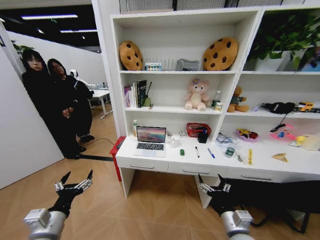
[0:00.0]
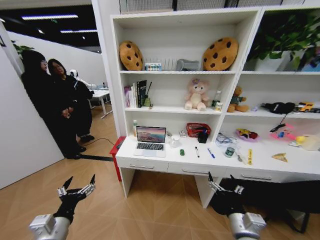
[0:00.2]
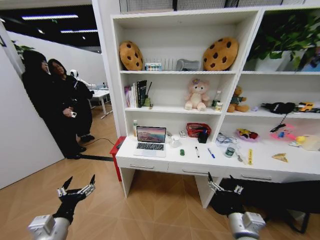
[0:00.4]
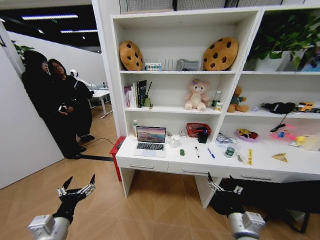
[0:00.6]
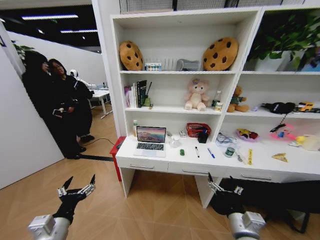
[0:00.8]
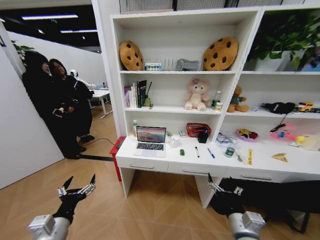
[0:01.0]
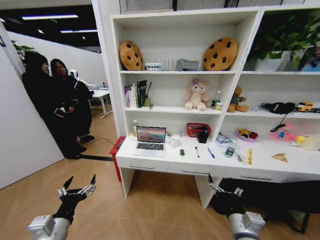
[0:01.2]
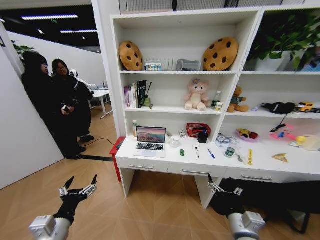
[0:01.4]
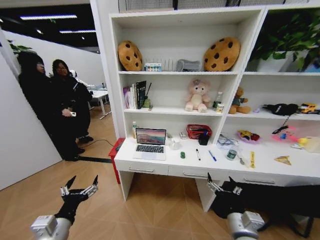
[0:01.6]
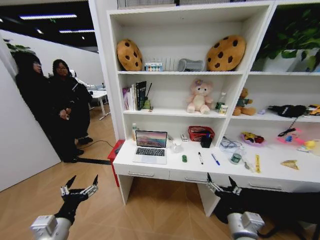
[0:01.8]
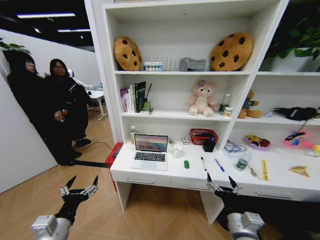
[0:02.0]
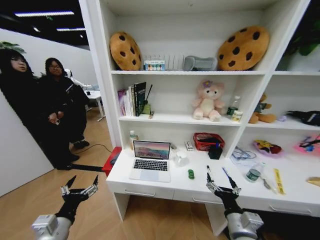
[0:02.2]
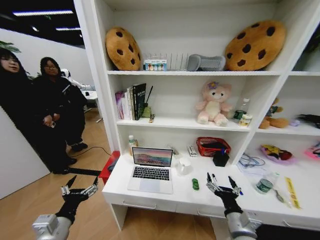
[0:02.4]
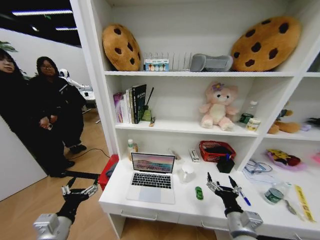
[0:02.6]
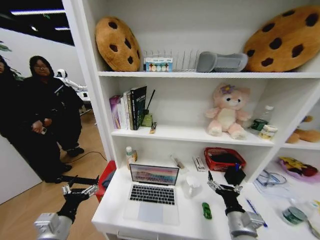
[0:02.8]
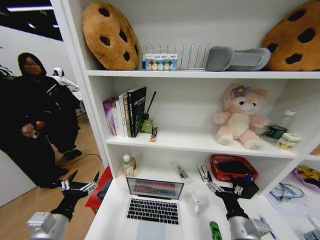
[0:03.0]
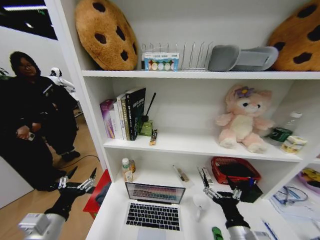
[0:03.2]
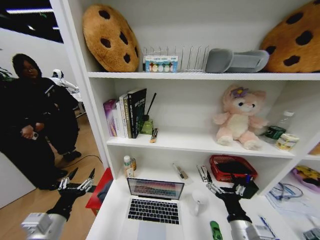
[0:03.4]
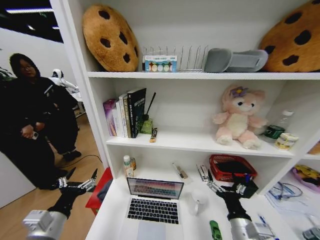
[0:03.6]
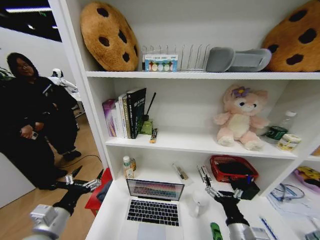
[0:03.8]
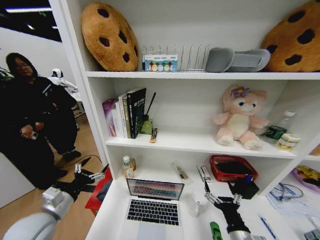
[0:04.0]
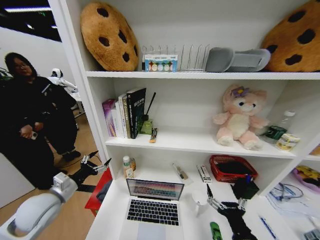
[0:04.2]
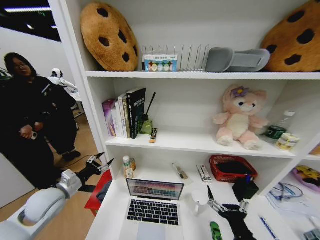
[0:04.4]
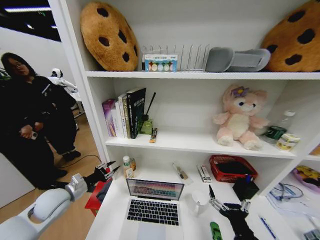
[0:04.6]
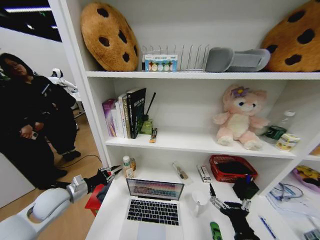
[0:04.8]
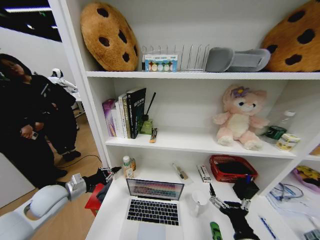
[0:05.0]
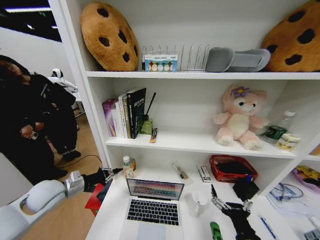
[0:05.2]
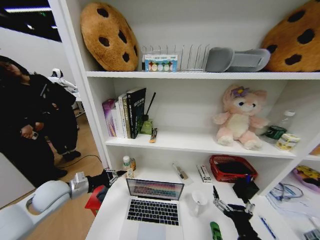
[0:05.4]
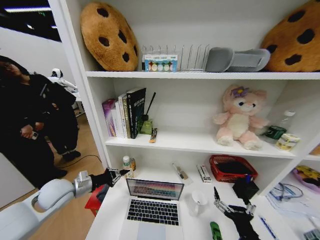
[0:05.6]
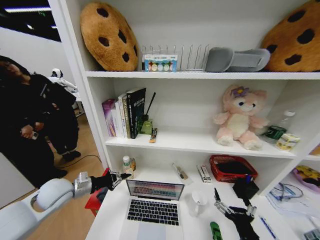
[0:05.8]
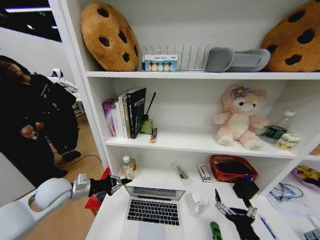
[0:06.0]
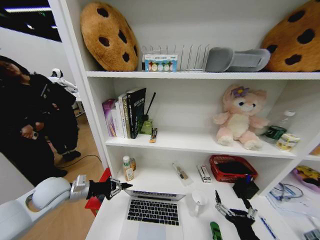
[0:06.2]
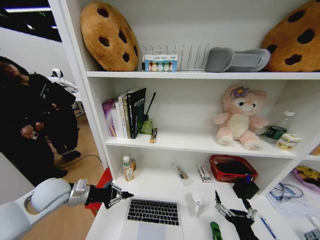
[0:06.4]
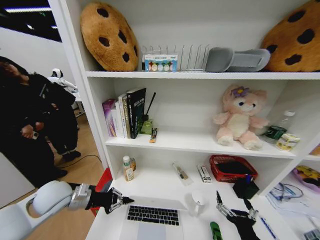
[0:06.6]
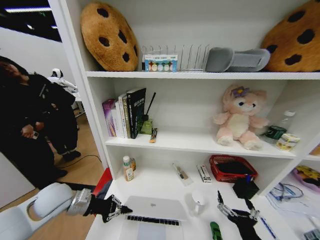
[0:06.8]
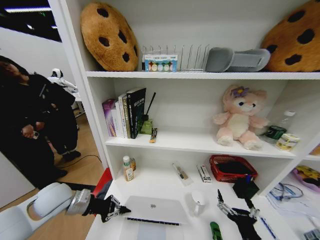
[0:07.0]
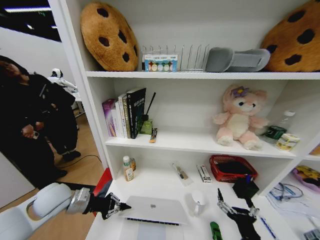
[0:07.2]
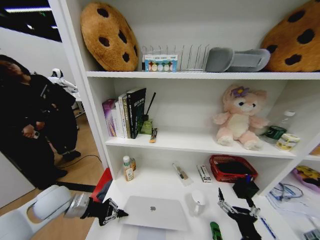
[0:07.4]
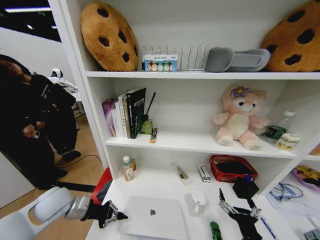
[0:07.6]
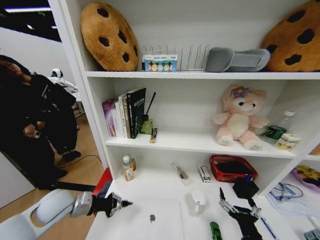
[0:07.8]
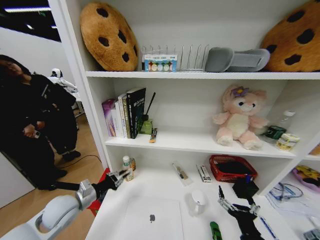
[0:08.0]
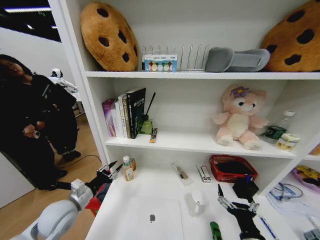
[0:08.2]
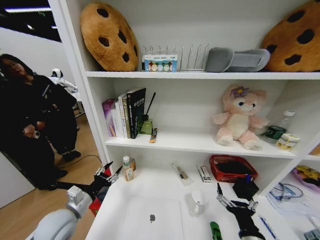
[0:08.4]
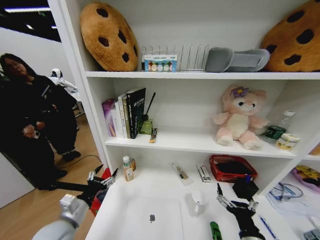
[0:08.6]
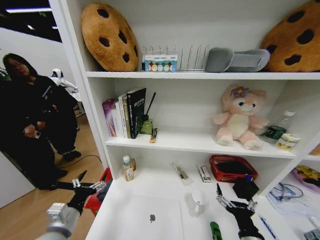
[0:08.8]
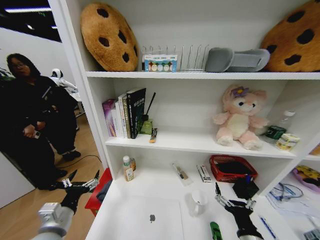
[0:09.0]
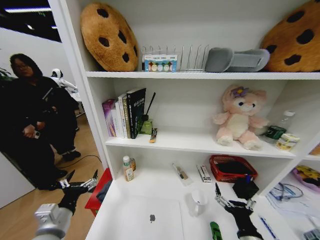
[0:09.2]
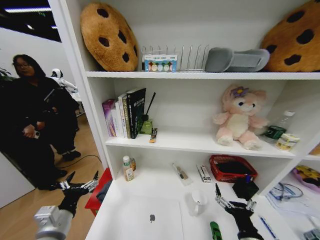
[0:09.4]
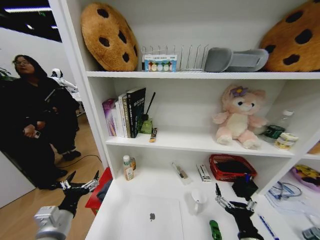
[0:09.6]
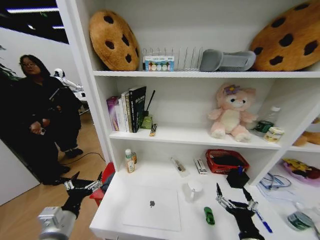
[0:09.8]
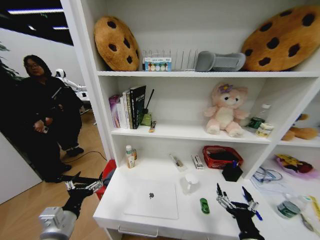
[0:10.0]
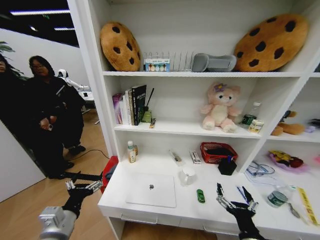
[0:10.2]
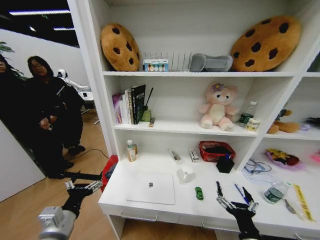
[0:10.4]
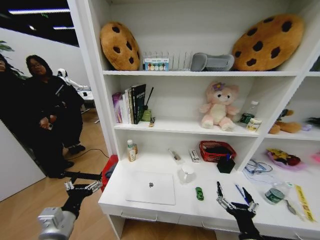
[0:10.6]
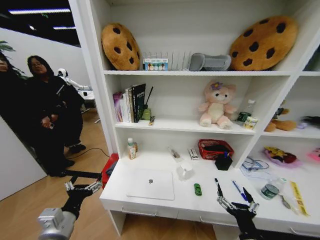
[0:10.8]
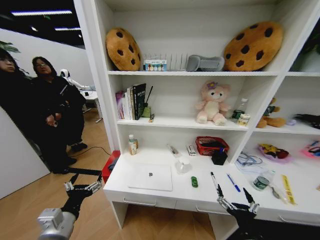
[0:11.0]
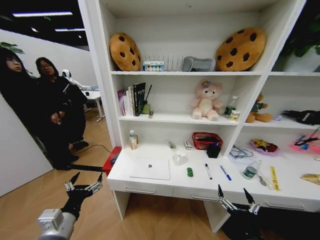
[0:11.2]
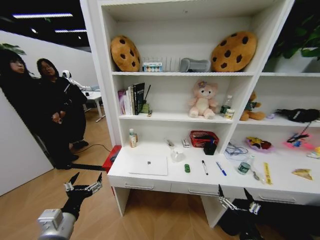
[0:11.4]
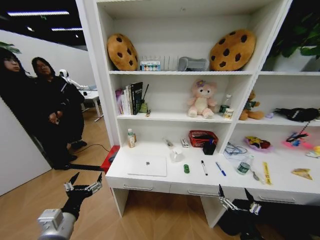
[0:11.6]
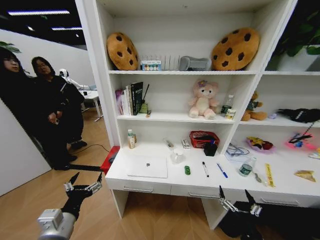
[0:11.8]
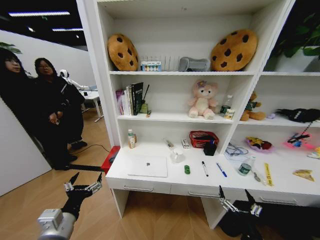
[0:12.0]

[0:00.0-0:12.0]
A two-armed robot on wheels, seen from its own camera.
Task of the whole recording: Organize the objects on the table.
0:03.0 to 0:04.4: The right gripper travels backward by roughly 5 cm; the left gripper shifts about 15 cm forward and to the left.
0:04.4 to 0:06.0: The left gripper closes.
0:07.6 to 0:09.0: The left gripper is displaced backward by about 10 cm, and opens up.

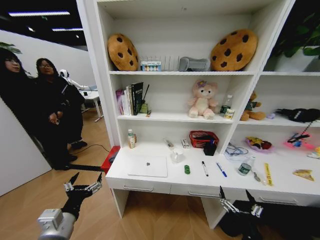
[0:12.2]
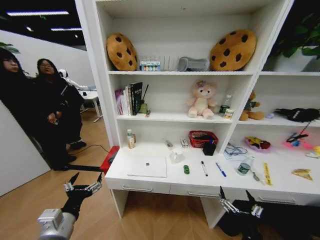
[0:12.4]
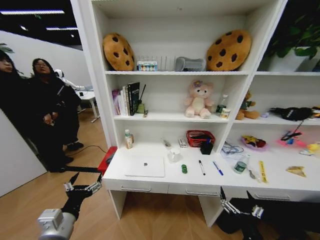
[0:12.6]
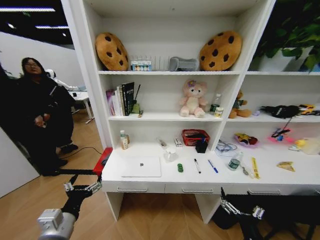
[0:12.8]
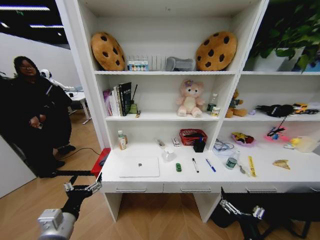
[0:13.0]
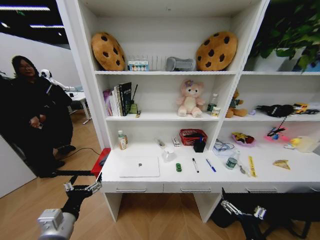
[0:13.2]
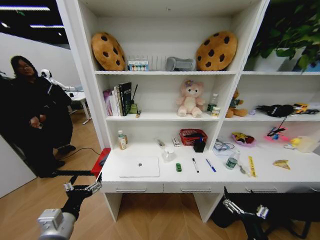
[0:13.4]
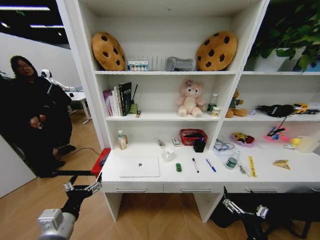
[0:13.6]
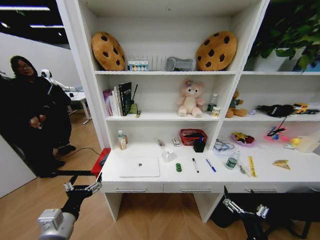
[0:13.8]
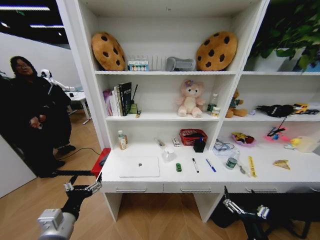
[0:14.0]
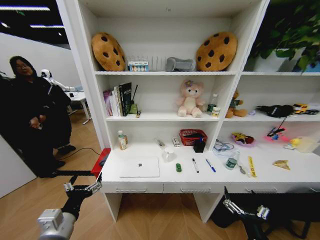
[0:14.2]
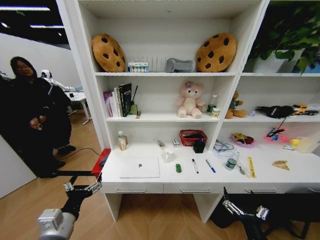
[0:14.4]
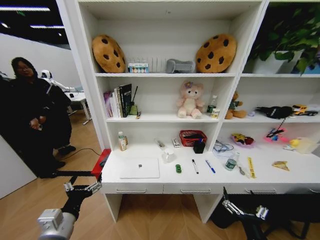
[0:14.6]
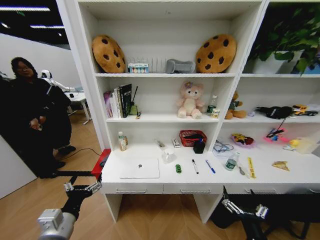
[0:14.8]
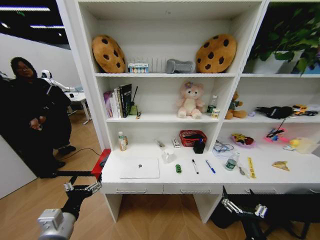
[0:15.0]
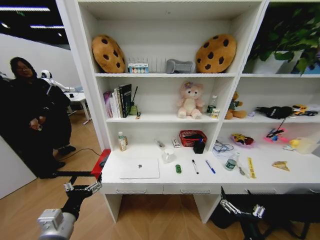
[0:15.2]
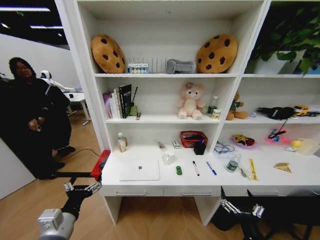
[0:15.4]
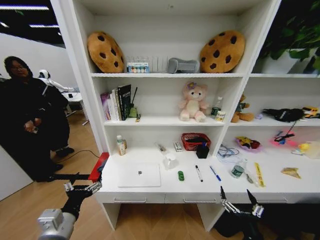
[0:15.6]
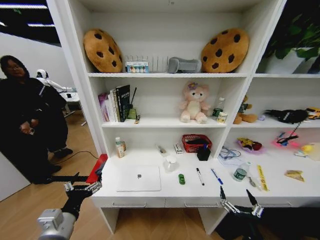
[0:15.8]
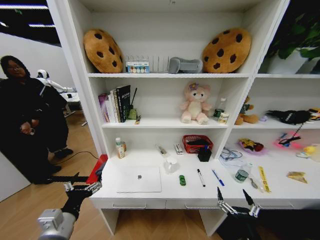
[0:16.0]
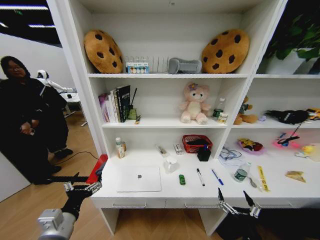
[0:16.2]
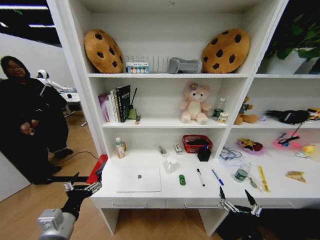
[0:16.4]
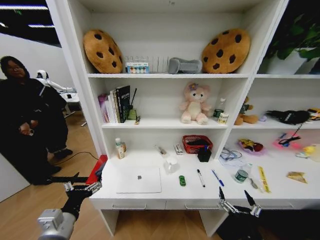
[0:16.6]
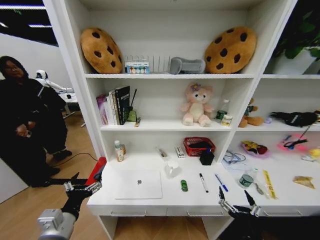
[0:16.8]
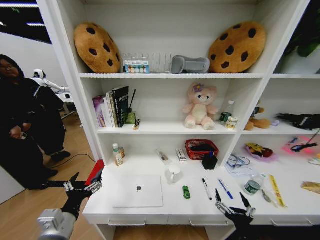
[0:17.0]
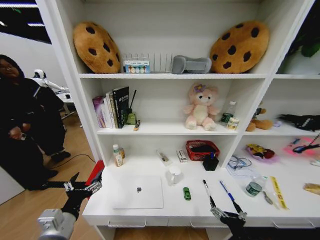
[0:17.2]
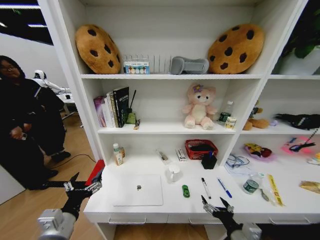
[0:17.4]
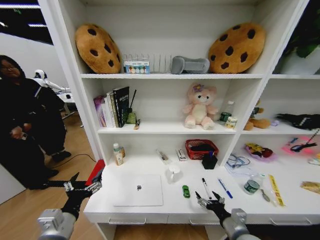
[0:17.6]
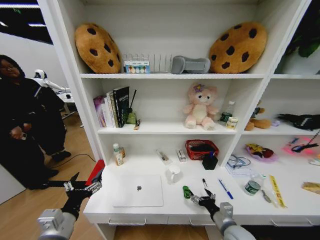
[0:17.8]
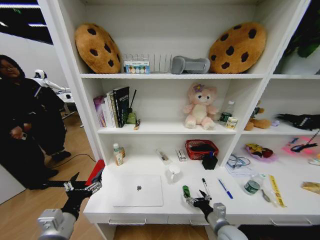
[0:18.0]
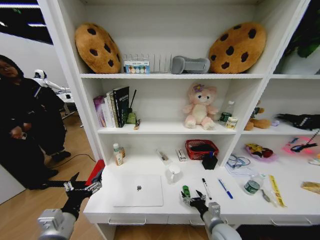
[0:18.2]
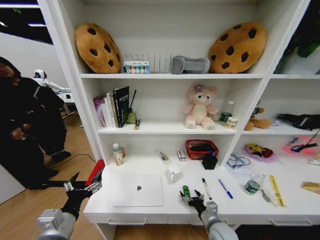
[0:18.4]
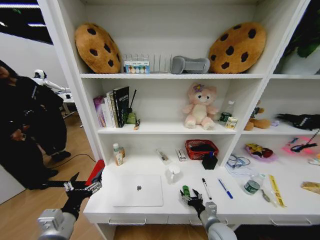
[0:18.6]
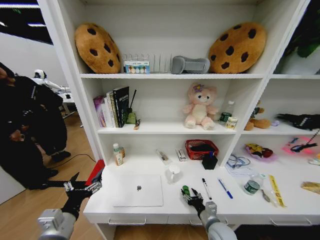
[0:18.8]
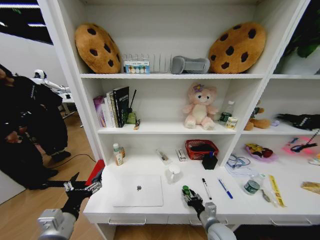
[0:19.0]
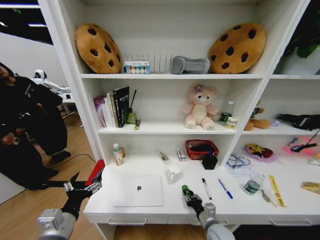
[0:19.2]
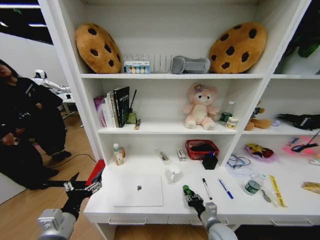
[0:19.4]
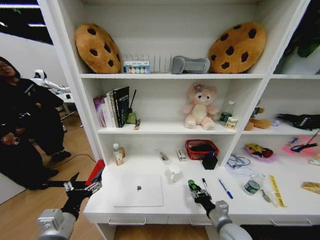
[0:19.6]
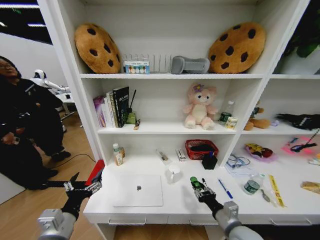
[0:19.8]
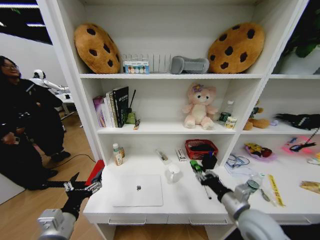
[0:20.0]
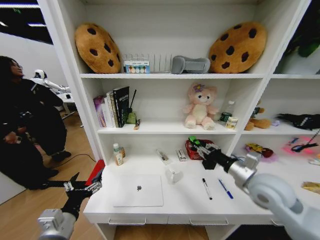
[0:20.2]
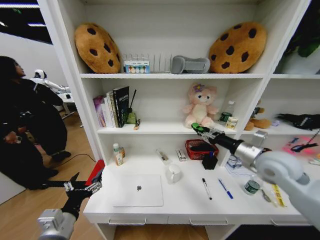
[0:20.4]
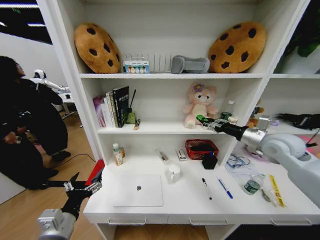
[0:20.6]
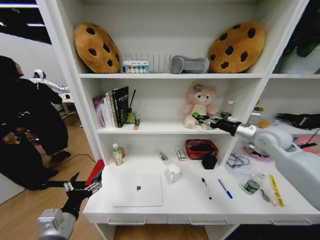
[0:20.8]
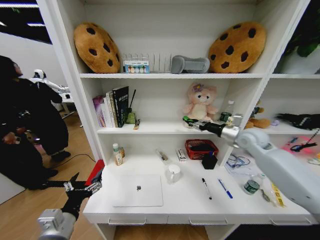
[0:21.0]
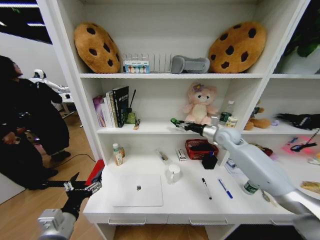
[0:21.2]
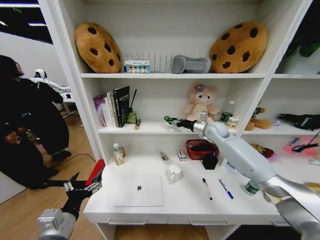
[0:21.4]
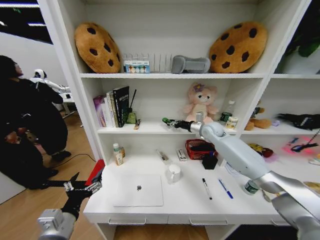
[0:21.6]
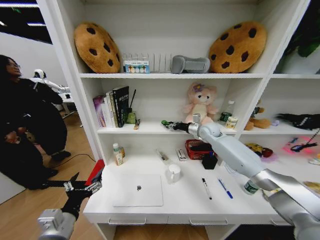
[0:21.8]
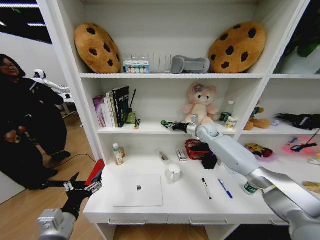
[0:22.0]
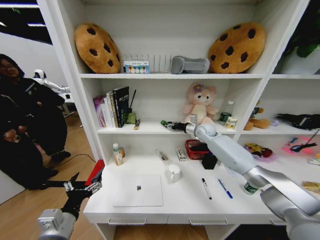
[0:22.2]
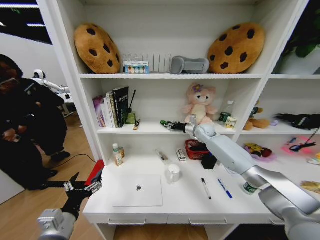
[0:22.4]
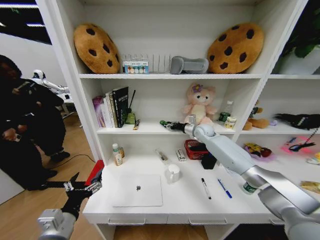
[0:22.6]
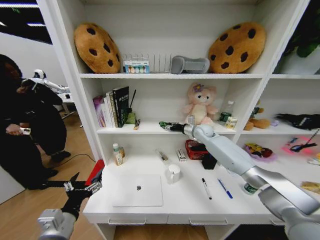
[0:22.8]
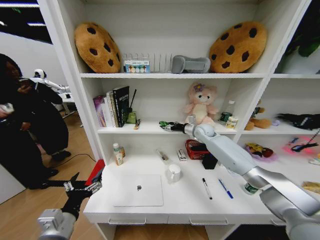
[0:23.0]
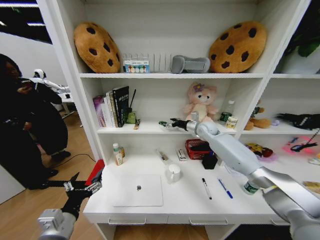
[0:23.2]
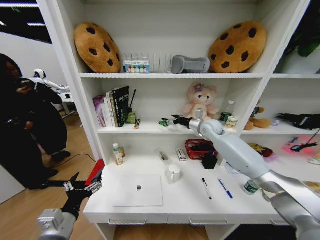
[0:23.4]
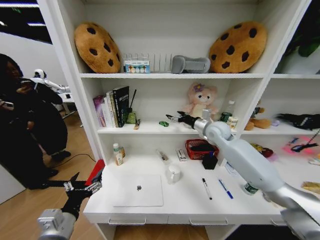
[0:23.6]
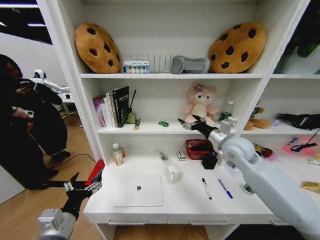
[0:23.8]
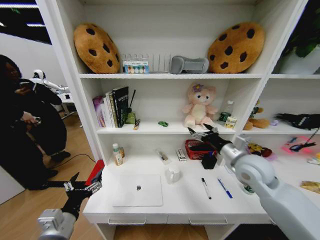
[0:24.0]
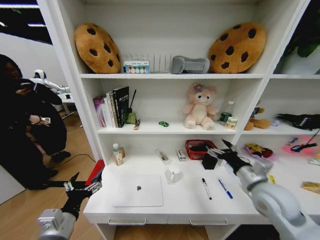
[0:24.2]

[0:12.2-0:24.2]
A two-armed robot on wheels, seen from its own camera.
Task of the whole recording: Organize the objects on the table.
0:13.8 to 0:15.2: The two grippers keep their place.
0:16.6 to 0:18.2: The right gripper is displaced forward and downward by roughly 15 cm.
0:18.2 to 0:19.8: The right gripper goes roughly 10 cm upward, and closes its fingers.
0:19.8 to 0:21.2: The right gripper moves forward and upward, roughly 40 cm.
0:21.2 to 0:22.6: The right gripper moves forward and to the left, roughly 10 cm.
0:22.6 to 0:24.2: The right gripper goes roughly 30 cm backward, and opens.
